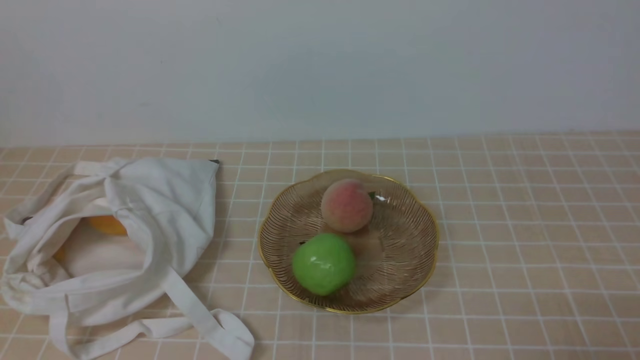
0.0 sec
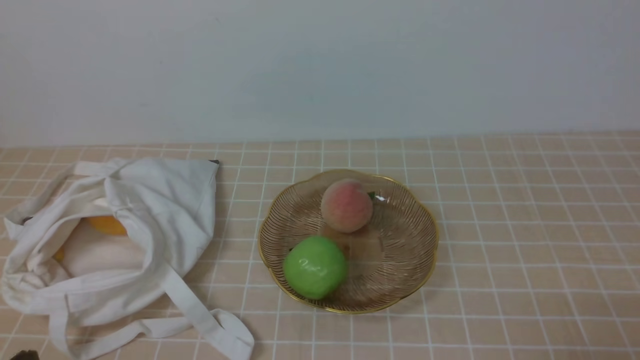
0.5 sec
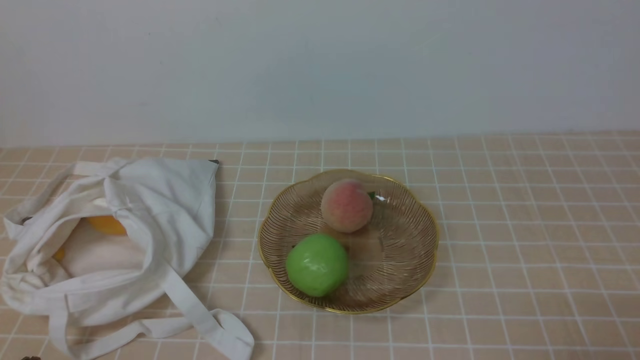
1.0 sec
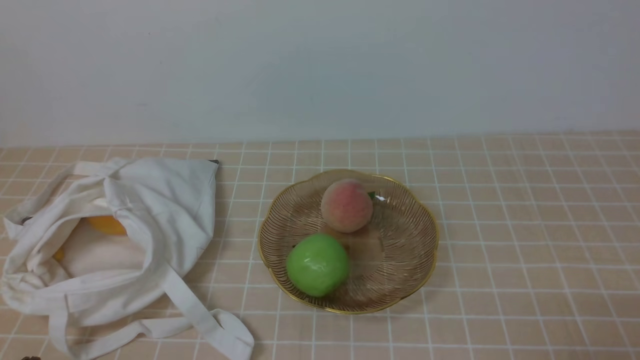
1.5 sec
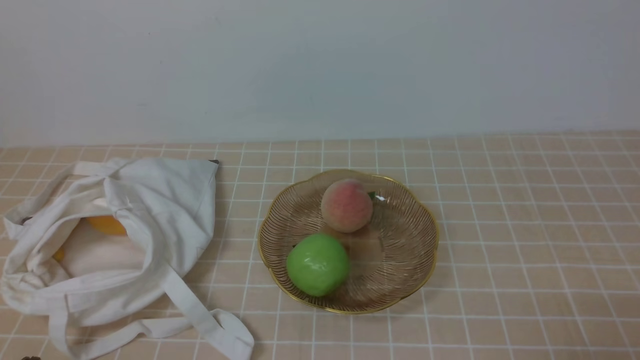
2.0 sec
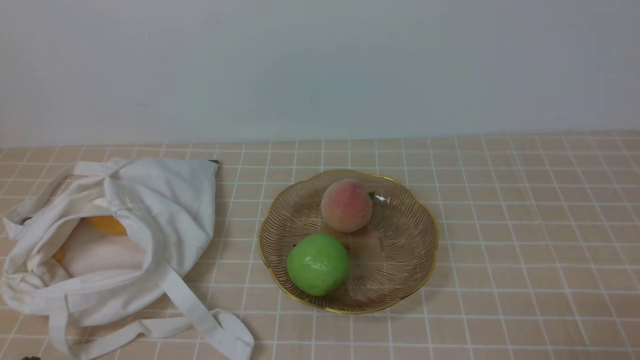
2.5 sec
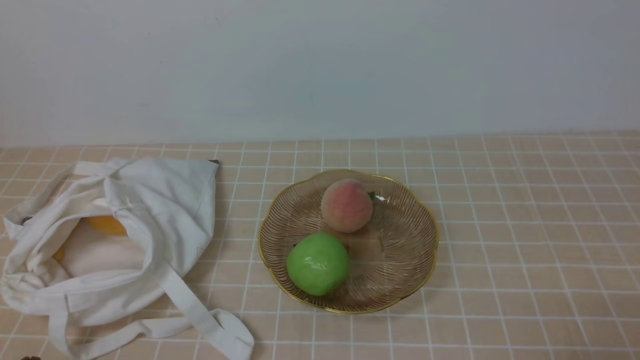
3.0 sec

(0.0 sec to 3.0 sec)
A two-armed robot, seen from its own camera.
1.5 sec - 3.0 sec: Neither gripper changes place.
